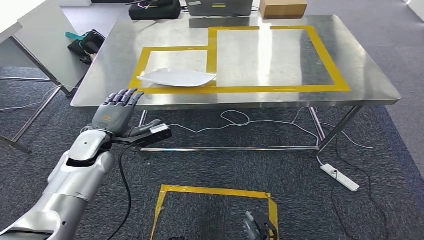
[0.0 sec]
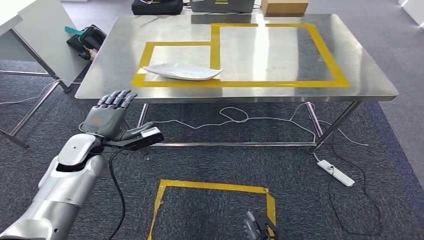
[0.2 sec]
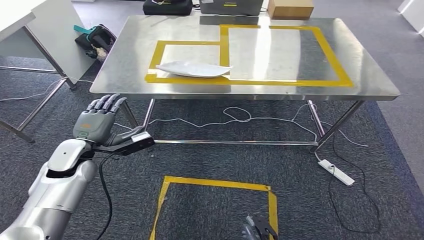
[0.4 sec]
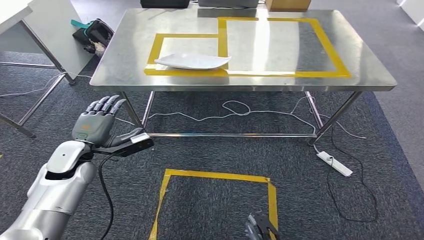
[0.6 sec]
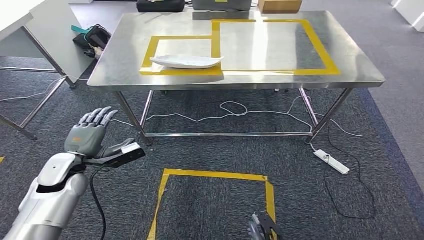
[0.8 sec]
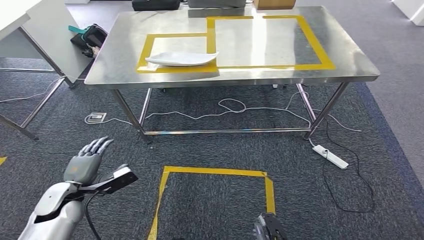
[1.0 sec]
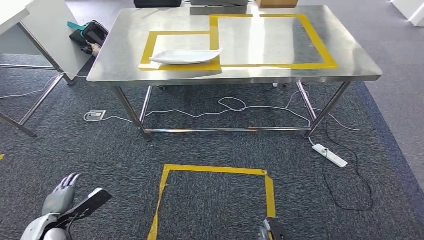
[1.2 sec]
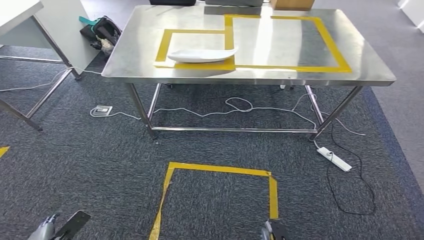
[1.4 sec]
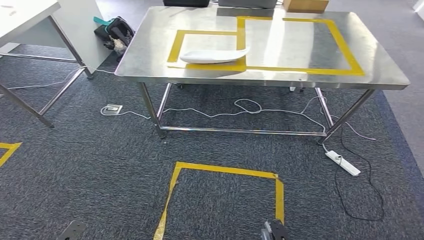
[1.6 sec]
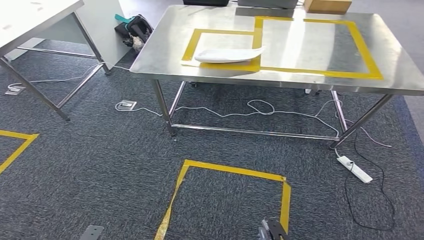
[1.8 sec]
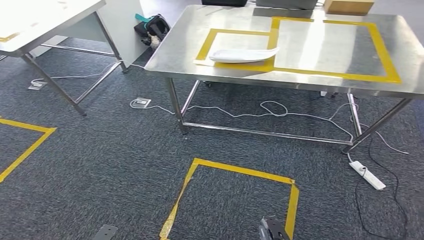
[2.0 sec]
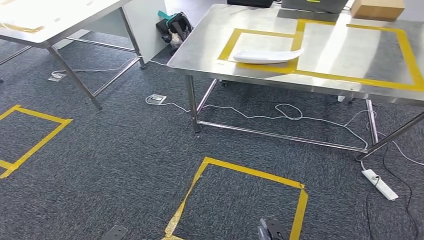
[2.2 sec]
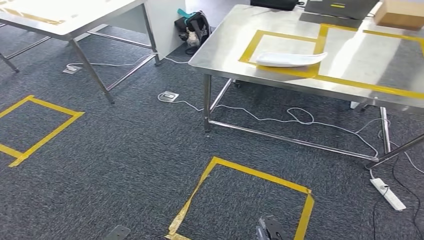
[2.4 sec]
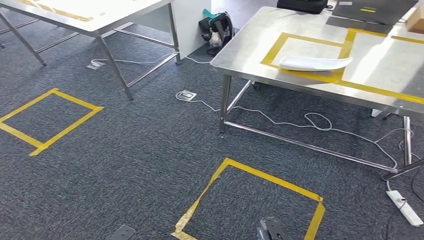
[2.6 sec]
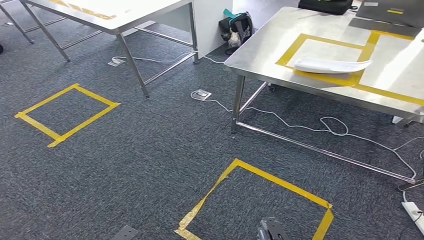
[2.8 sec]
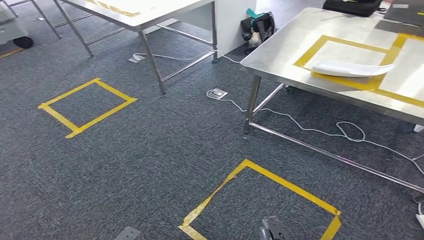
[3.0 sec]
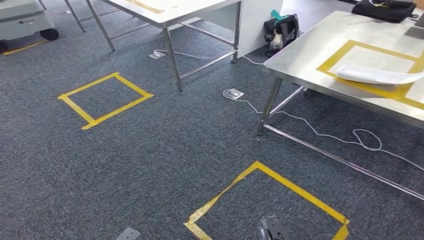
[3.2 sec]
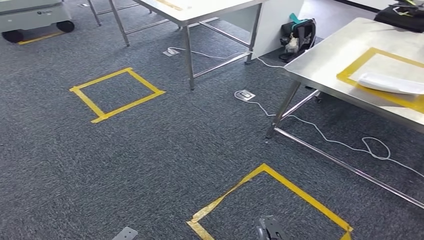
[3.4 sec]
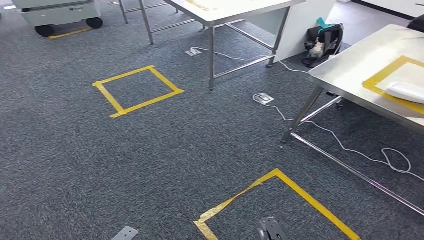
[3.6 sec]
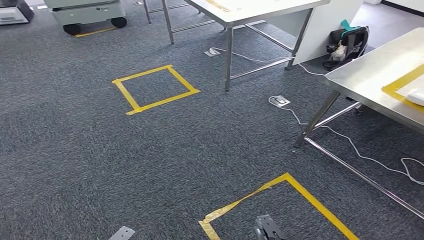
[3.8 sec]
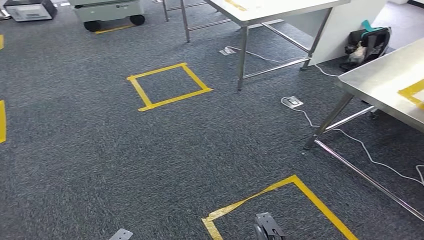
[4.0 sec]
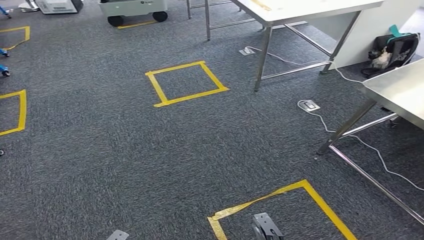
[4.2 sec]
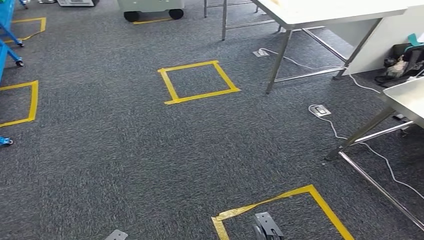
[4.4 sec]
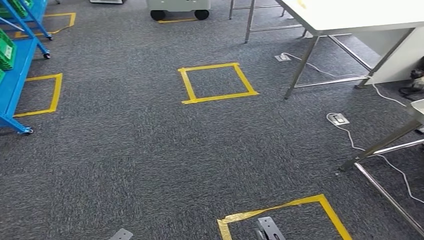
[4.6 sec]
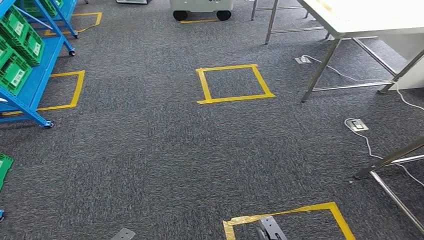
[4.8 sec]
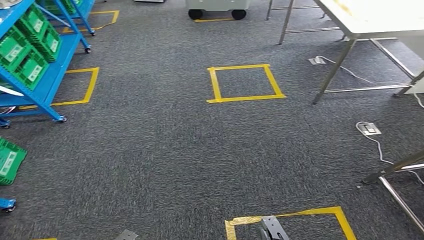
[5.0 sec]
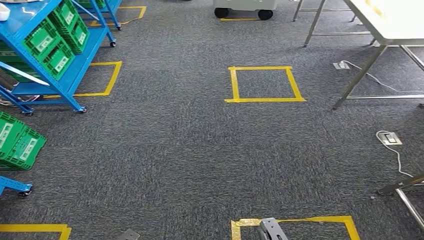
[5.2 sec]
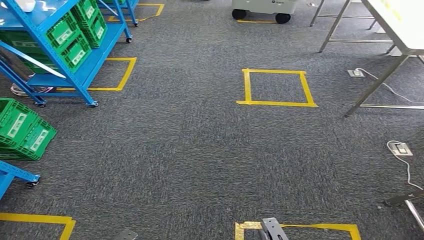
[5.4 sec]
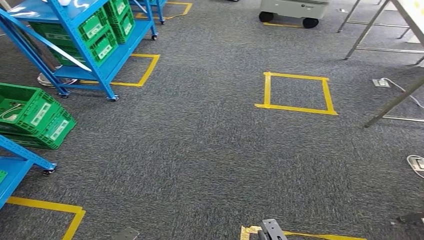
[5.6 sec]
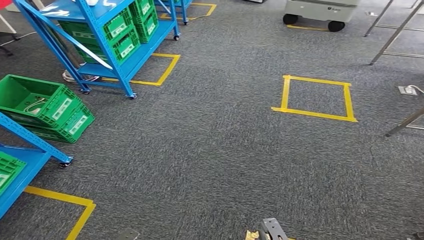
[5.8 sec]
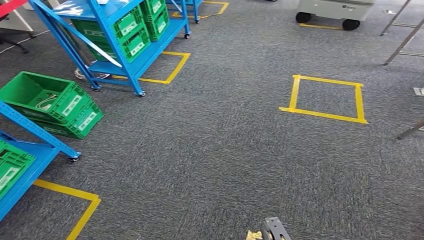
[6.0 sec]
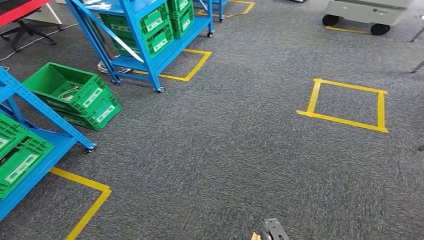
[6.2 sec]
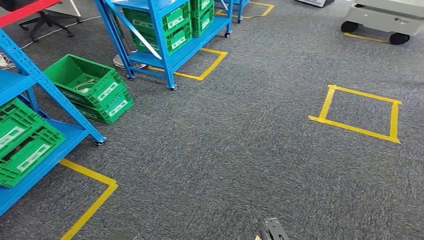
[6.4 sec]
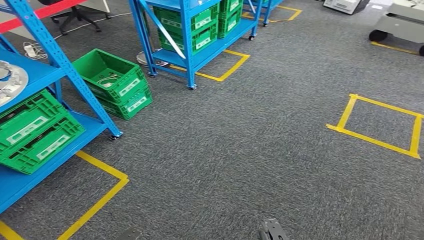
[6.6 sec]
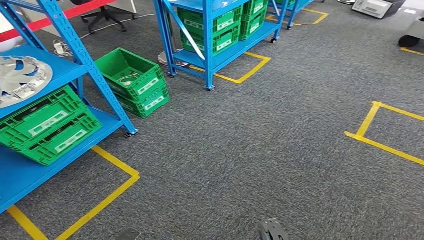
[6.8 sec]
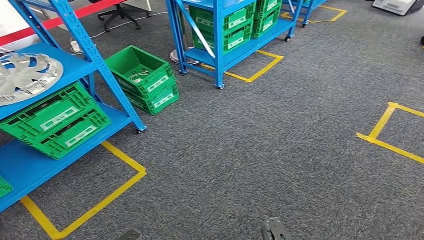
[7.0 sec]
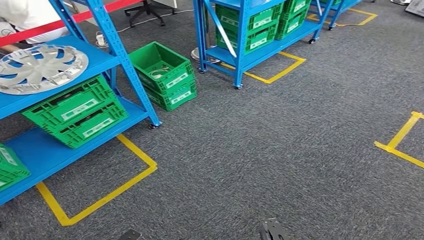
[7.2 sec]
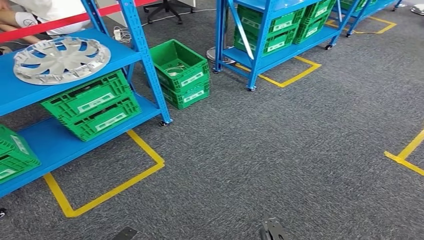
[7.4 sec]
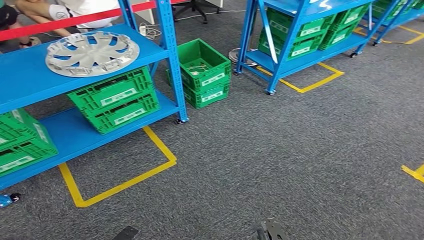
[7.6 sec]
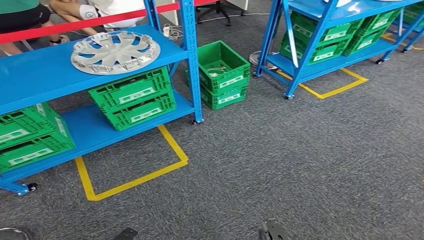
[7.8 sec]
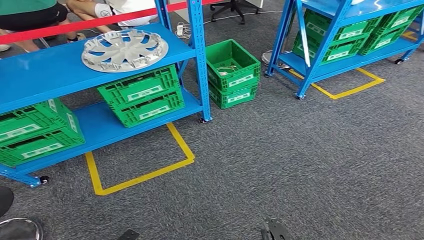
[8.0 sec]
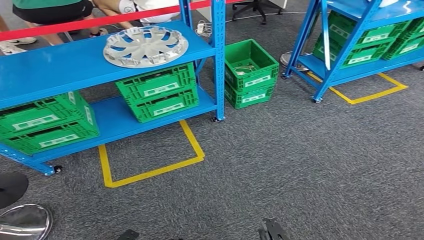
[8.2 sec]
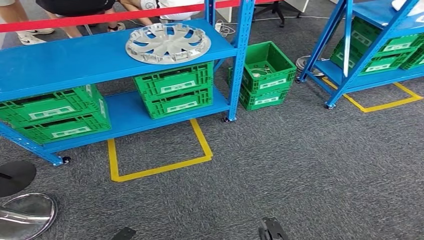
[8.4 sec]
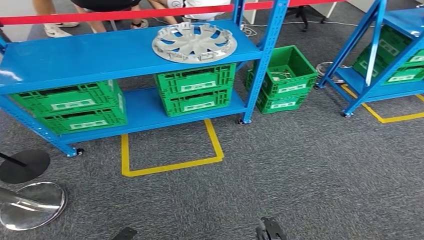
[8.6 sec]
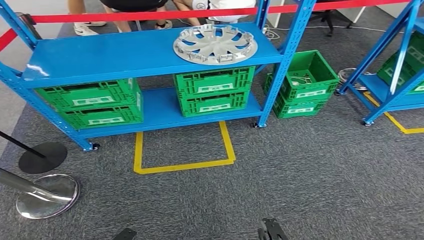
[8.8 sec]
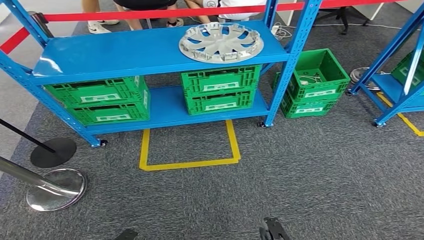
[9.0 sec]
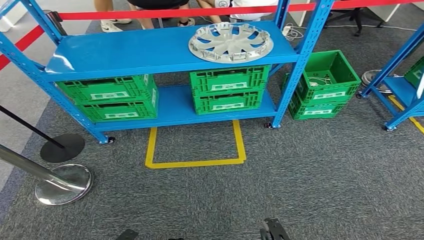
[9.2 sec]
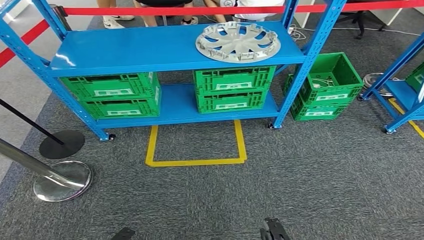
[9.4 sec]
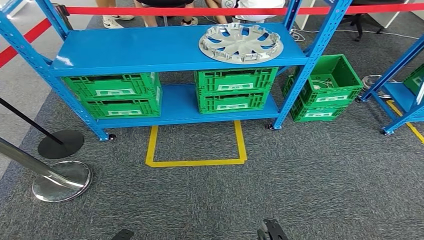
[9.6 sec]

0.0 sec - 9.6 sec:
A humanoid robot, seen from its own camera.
Step, 0.8 sec - 9.6 sec: Return to the initial position at the workbench.
